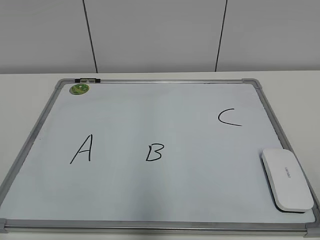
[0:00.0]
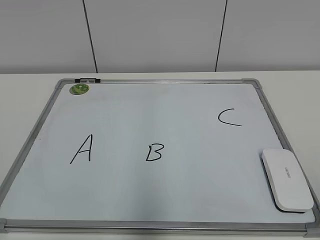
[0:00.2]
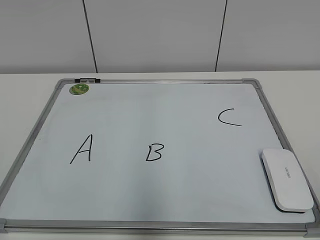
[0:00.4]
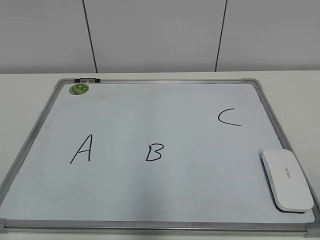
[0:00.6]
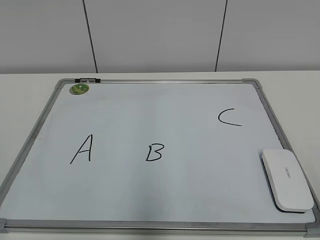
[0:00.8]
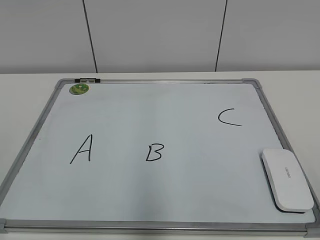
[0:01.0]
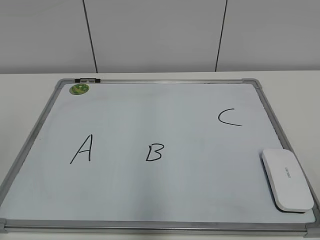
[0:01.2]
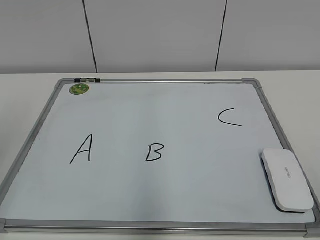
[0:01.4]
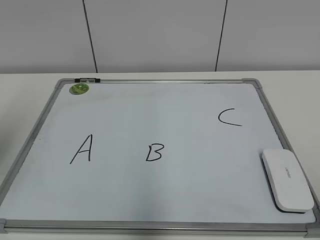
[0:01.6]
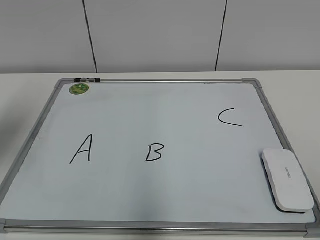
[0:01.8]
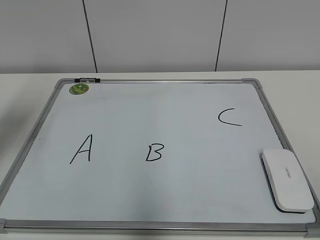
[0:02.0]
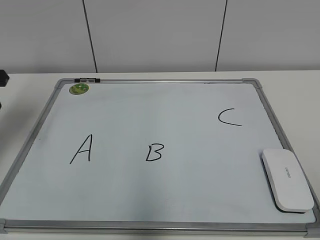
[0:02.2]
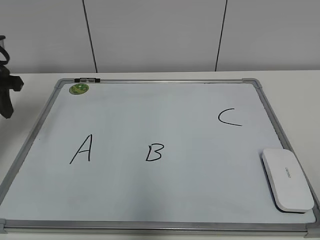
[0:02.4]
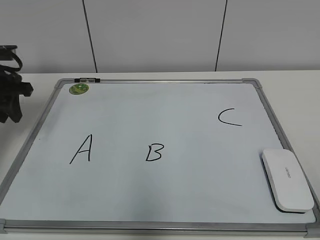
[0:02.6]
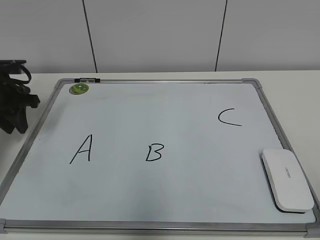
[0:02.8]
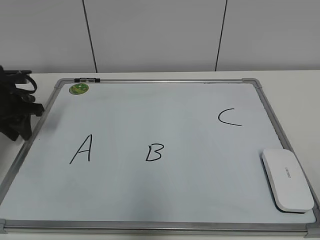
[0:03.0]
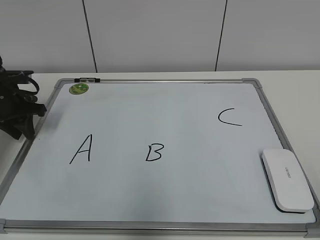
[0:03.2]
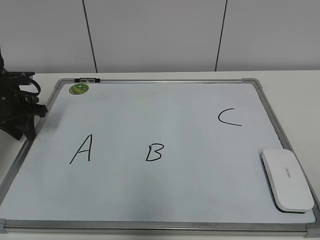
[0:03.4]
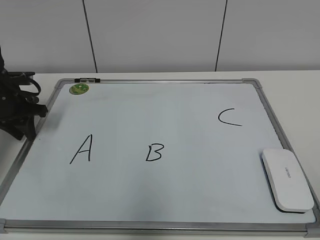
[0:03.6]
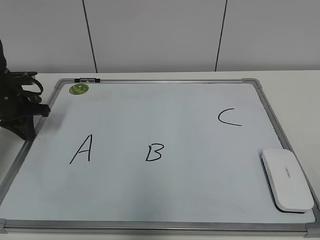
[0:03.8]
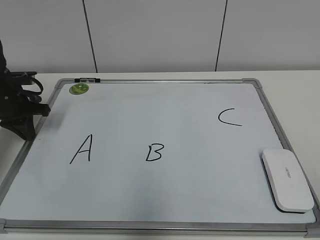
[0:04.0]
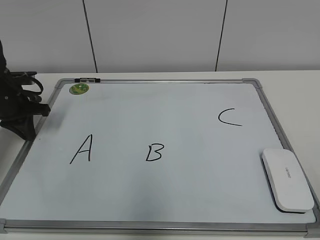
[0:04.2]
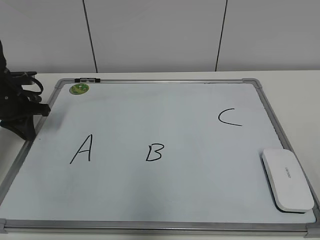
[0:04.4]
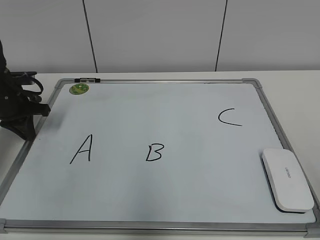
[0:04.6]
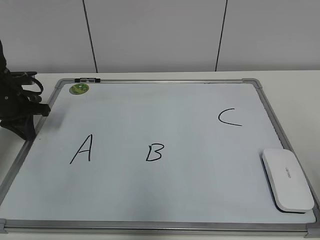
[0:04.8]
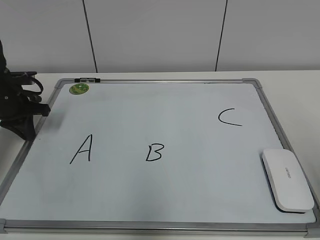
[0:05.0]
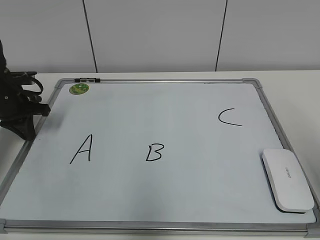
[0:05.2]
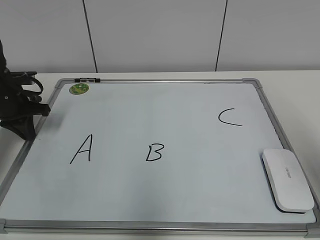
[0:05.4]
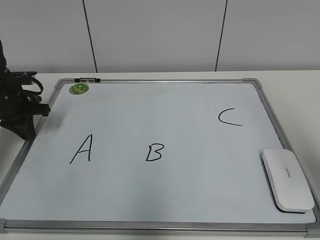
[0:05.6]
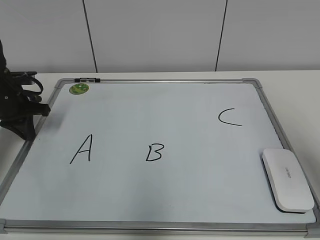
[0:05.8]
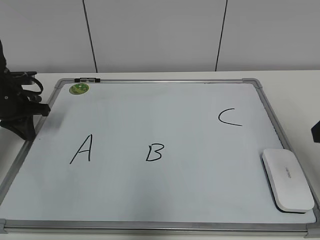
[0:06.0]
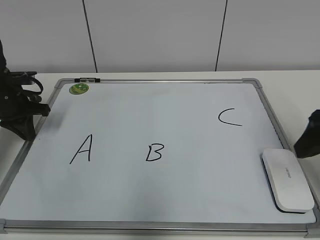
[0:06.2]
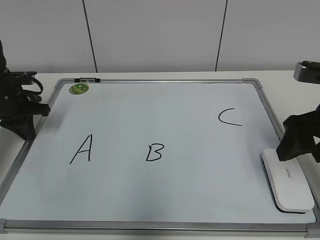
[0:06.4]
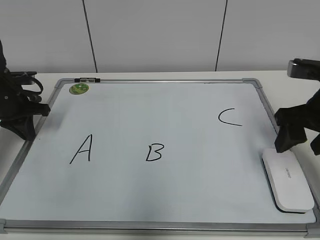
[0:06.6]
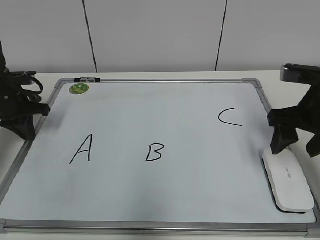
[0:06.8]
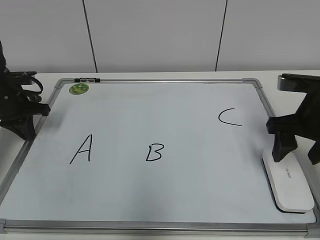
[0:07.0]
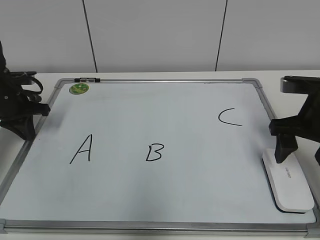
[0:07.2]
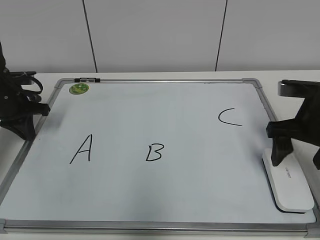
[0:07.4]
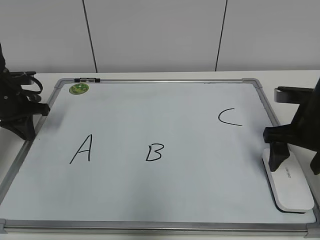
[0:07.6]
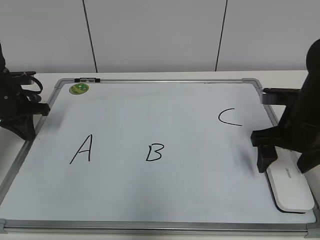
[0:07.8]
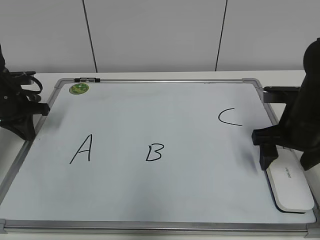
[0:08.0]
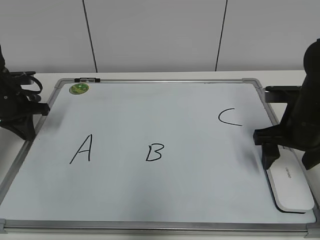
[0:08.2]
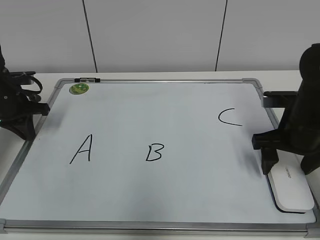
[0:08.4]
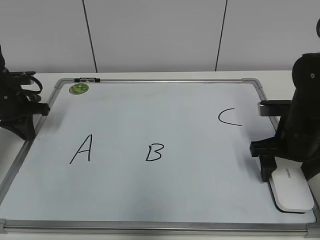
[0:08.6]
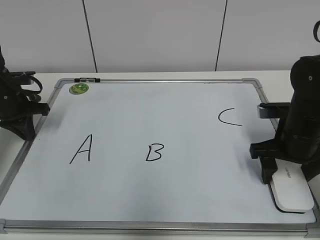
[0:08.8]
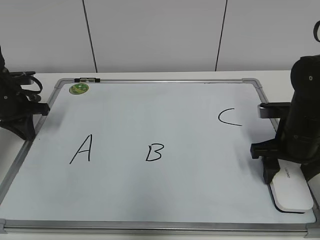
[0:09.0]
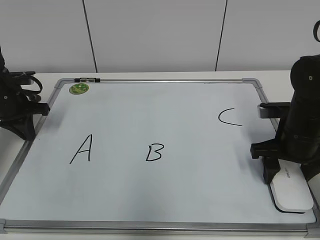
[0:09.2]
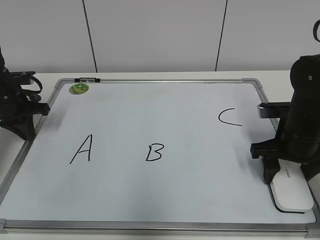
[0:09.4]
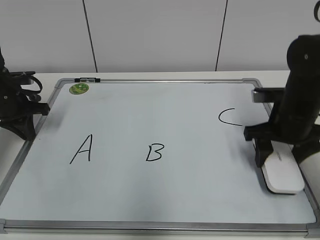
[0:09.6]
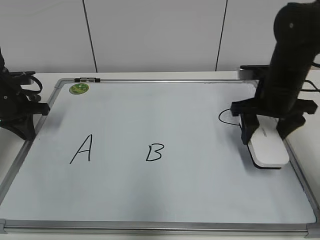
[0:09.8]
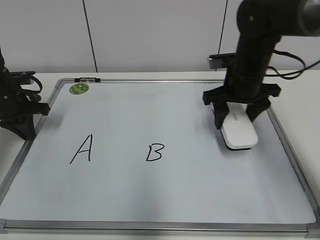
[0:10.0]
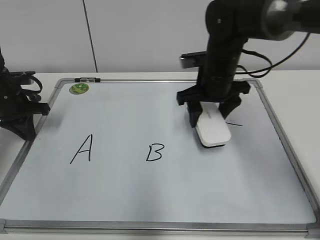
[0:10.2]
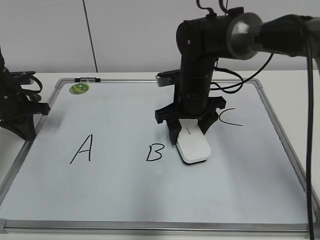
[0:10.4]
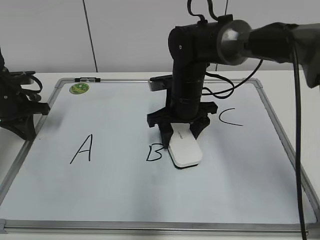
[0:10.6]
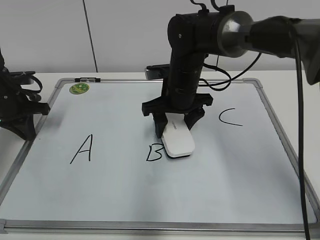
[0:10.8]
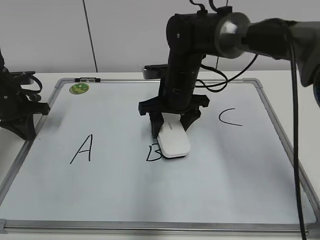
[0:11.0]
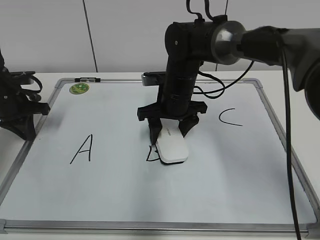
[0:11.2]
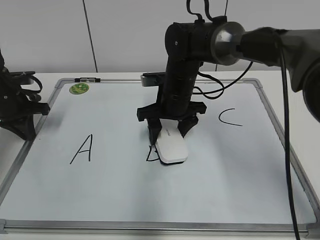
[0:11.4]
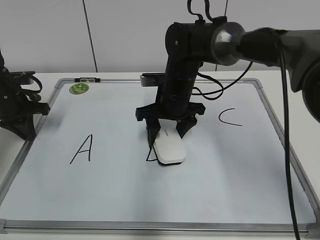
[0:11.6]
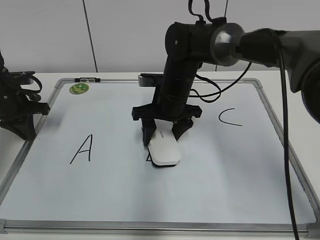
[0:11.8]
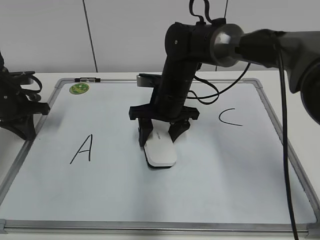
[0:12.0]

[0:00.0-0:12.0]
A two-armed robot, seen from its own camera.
Task of the whole recording: pick up the eraser on the blackboard and erase the letter "B".
Step, 0:00.0 to 0:04.4: Hold the drawing board steady with your left hand.
Step, 0:04.6 to 0:09.0: Grab the eraser with your right hand.
0:01.6 to 0:03.0: The left gripper travels forward and downward by some 25 cm.
0:03.0 to 0:04.4: The left gripper closes up.
0:04.4 to 0:06.0: The right gripper moves forward, about 20 cm.
0:06.0 to 0:07.6: The right gripper is displaced downward and forward by roughly 15 cm, and opens.
0:07.6 to 0:09.0: The right gripper closes up.
0:09.0 to 0:10.4: The right gripper shifts about 20 cm to the left and forward.
0:10.4 to 0:12.0: The grippers move only a little.

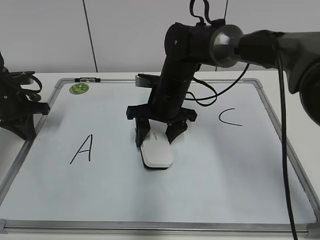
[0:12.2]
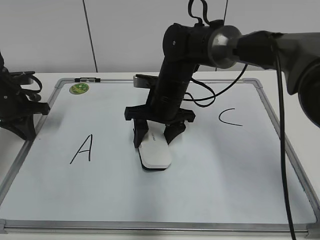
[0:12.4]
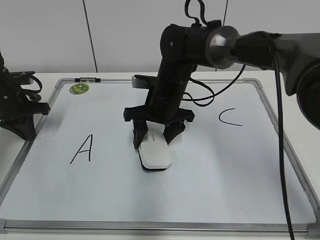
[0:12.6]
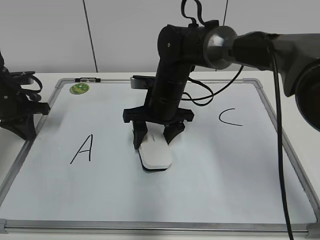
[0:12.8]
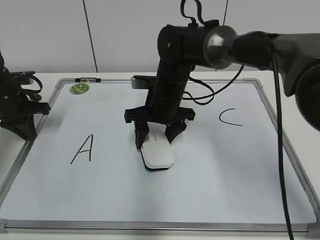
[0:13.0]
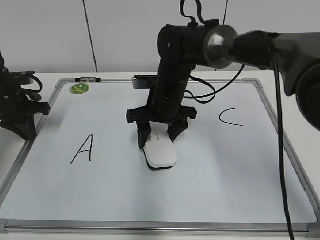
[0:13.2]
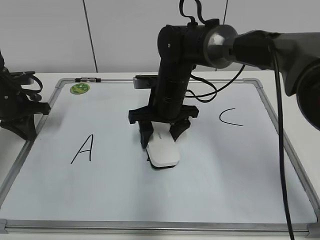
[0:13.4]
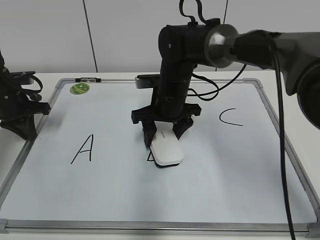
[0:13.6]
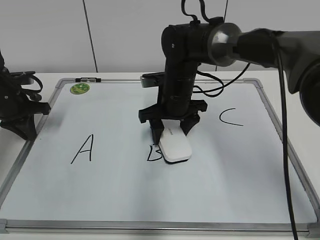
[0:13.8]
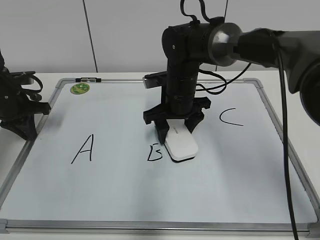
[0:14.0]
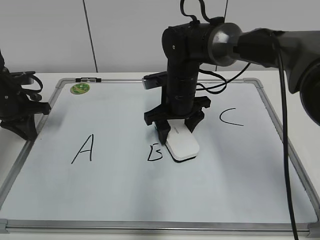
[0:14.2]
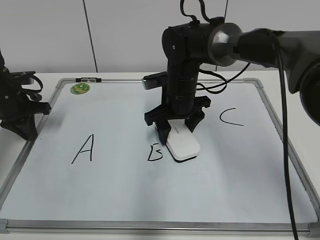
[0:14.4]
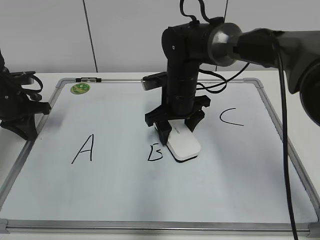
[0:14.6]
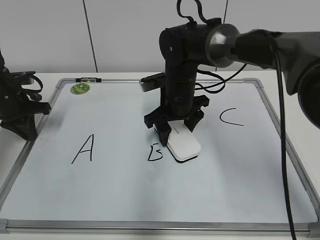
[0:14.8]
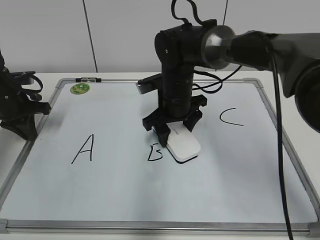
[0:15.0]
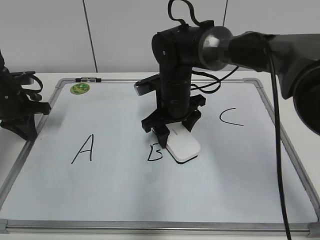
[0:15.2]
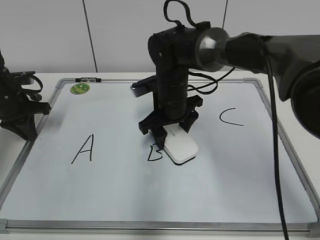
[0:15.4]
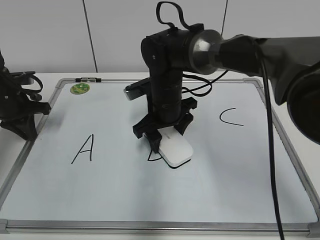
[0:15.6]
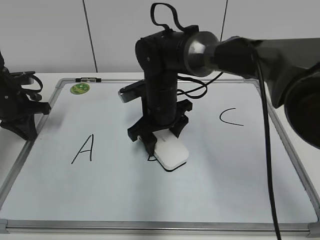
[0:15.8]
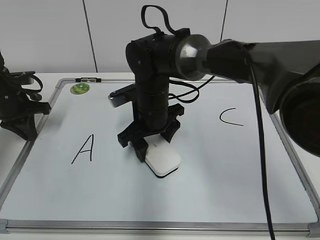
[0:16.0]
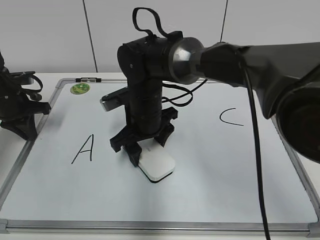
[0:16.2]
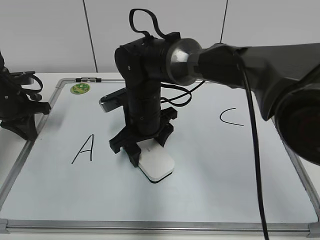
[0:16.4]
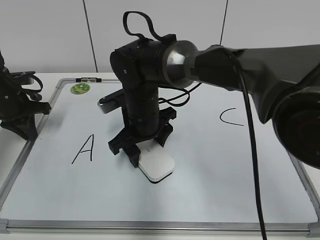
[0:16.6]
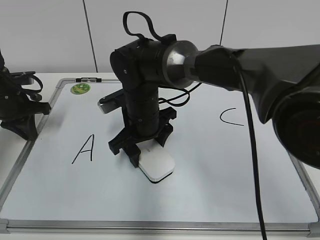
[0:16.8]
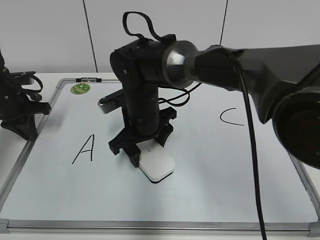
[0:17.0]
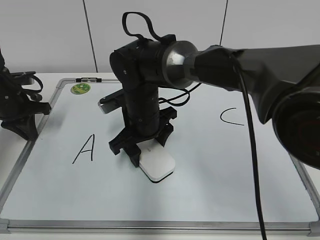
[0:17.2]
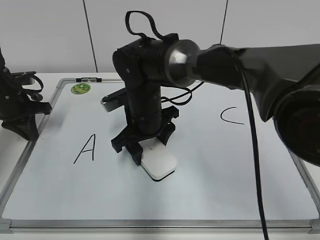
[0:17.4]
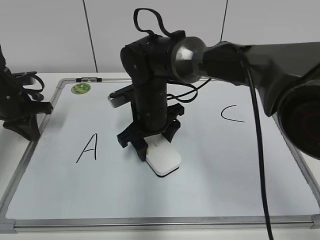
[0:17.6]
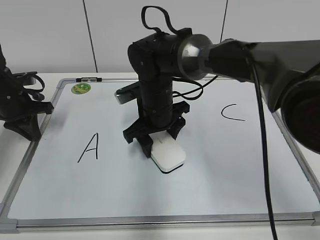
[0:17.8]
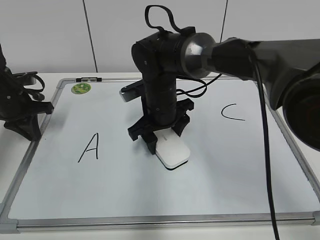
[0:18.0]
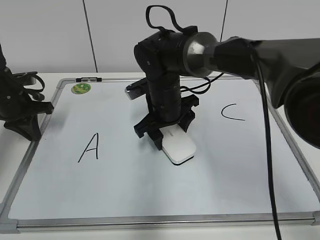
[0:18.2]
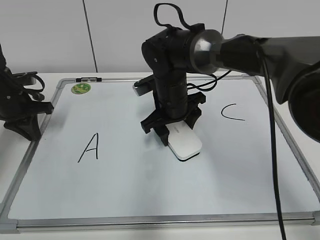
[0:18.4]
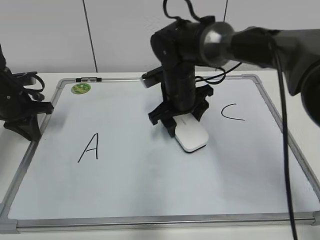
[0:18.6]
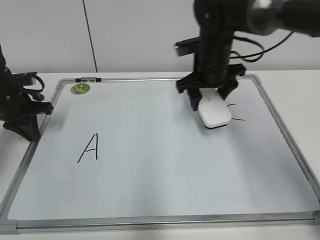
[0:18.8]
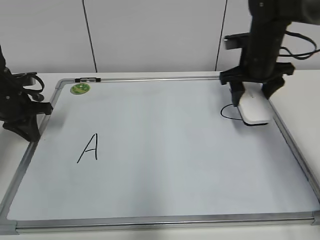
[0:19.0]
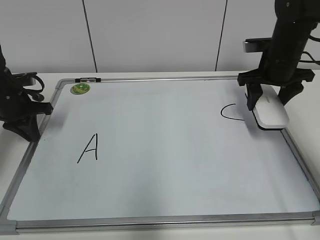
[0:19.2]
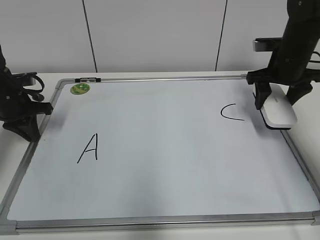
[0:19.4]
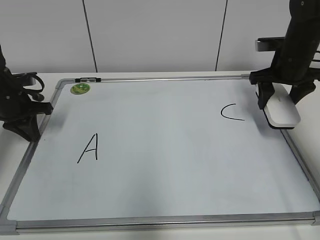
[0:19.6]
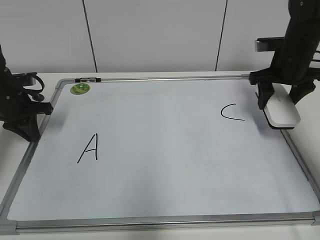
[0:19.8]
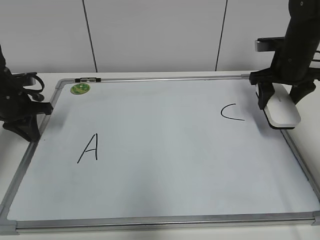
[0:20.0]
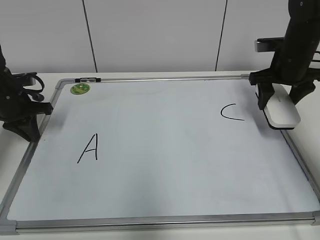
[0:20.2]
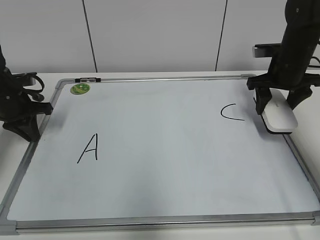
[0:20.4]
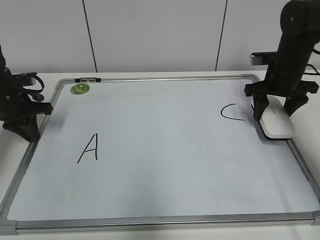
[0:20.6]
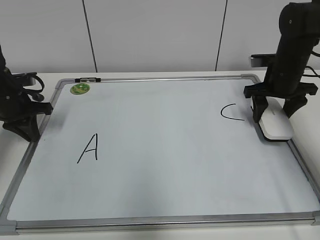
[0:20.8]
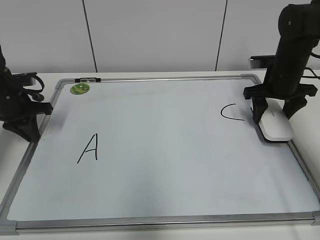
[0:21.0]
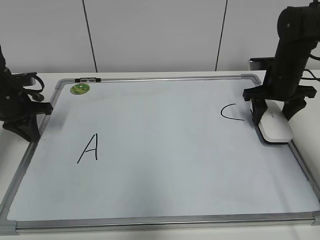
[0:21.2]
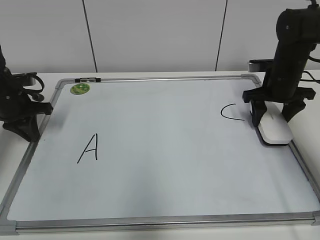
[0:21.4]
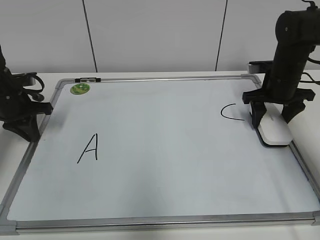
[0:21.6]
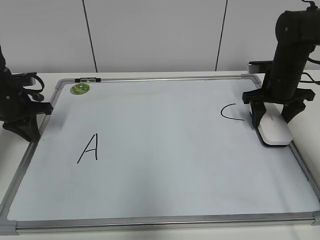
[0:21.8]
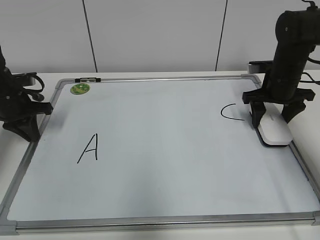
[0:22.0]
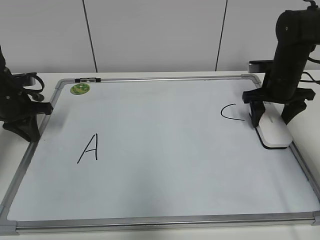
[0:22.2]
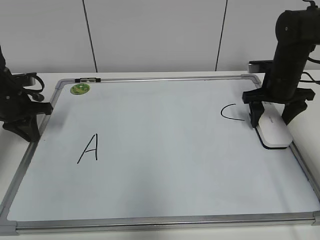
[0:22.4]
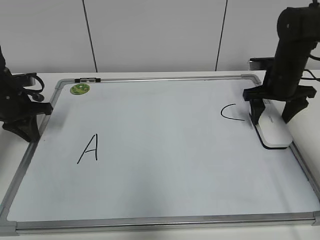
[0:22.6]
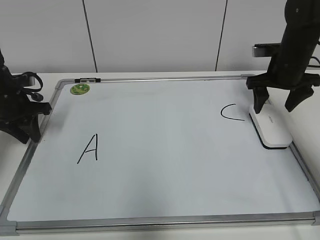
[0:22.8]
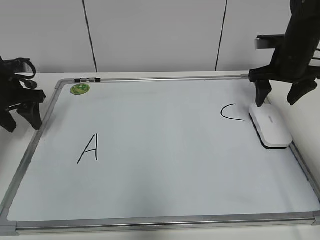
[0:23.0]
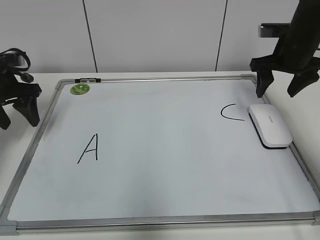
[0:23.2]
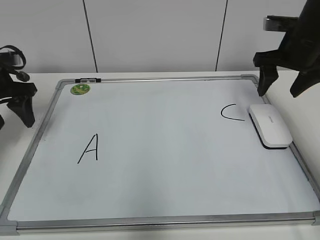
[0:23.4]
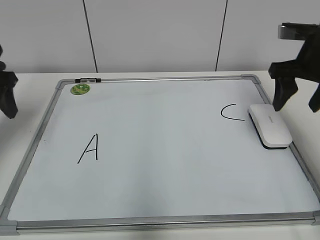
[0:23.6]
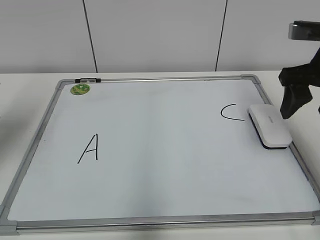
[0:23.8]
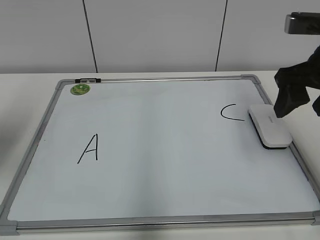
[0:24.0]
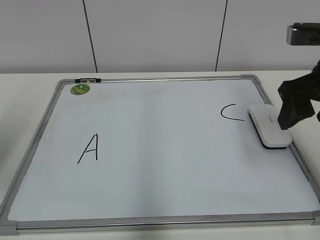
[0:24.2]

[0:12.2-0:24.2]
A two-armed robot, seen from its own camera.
Task of the whole recording: pick up the eraser on the blackboard and erase the letter "B".
Step, 0:12.2 to 0:18.4: Erase the letter B with your right hand.
Step, 0:18.6 to 0:22.0: Put down the eraser with your right hand.
0:12.2 to 0:13.8: There are only small adjustments of the grippers.
0:13.8 to 0:15.2: The grippers make only small movements.
0:15.2 to 0:16.6: The right gripper heads to the left, covering roughly 5 cm.
0:16.6 to 0:18.2: The right gripper changes place by about 5 cm.
0:18.2 to 0:19.8: The right gripper travels to the right by approximately 25 cm.
0:19.8 to 0:21.2: The grippers make only small movements.
0:21.2 to 0:22.6: The right gripper opens.
0:22.6 to 0:24.2: Both grippers move backward and upward, roughly 25 cm. The left gripper opens its fingers.
